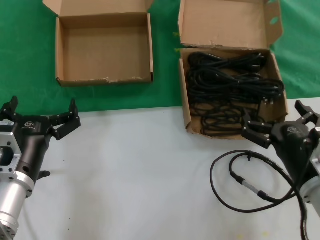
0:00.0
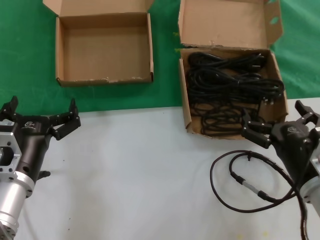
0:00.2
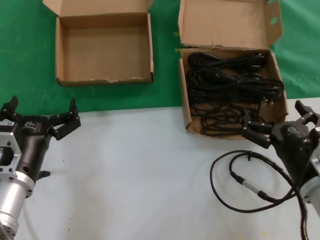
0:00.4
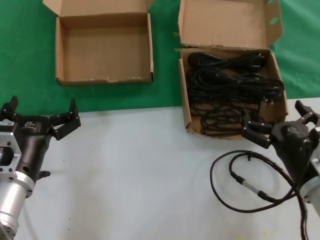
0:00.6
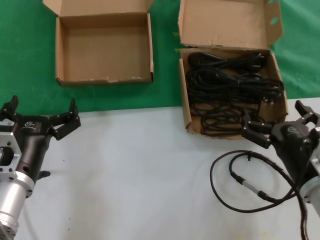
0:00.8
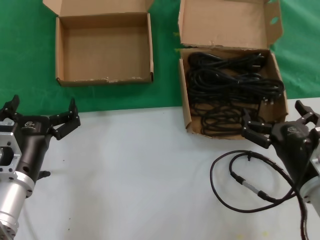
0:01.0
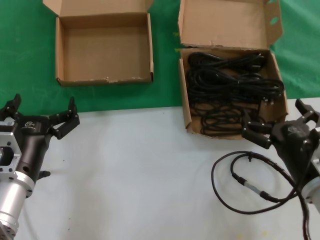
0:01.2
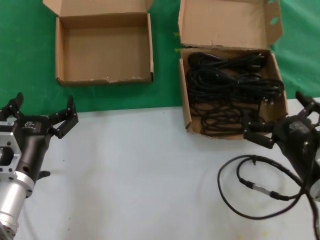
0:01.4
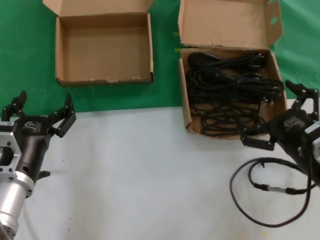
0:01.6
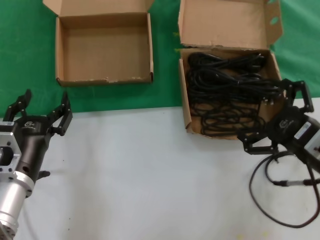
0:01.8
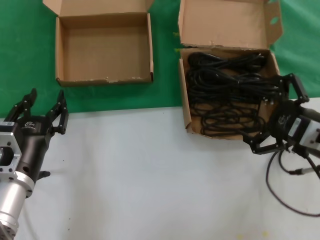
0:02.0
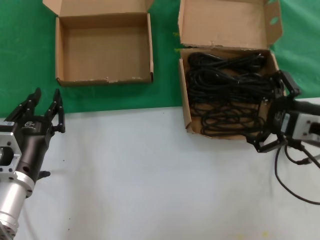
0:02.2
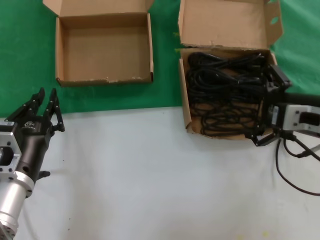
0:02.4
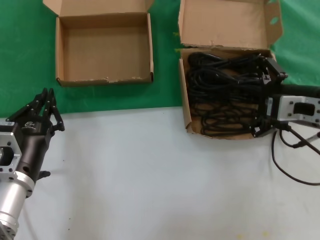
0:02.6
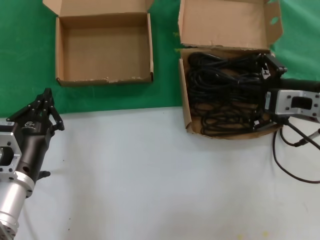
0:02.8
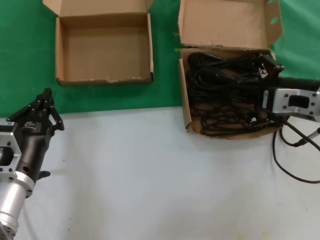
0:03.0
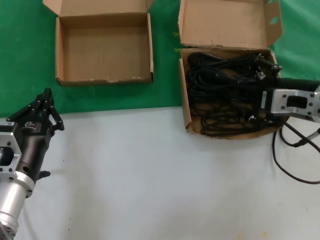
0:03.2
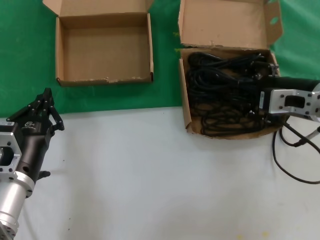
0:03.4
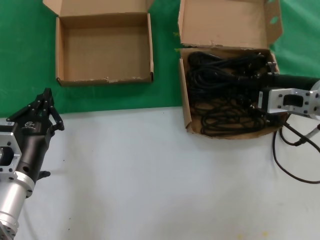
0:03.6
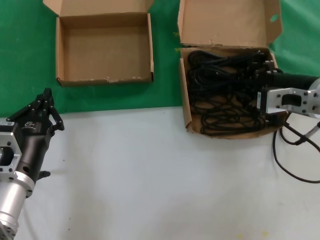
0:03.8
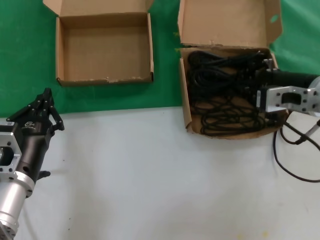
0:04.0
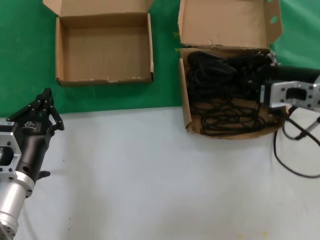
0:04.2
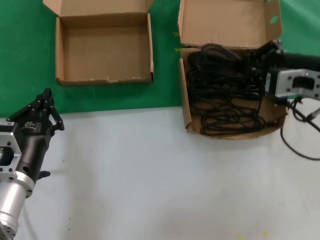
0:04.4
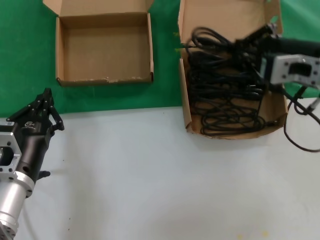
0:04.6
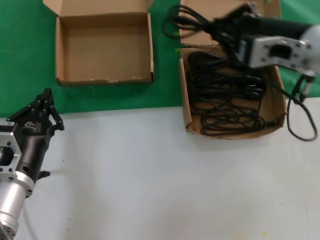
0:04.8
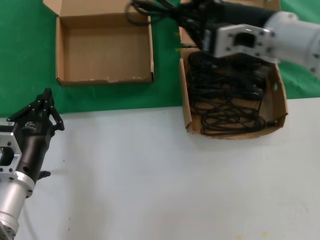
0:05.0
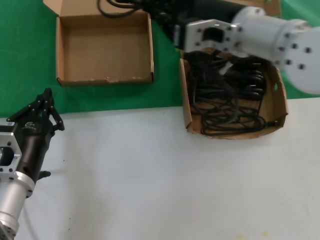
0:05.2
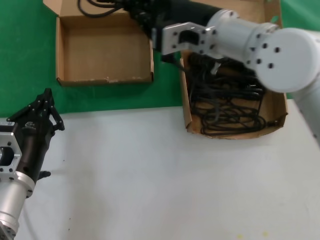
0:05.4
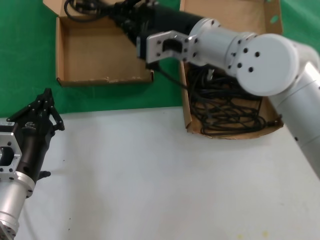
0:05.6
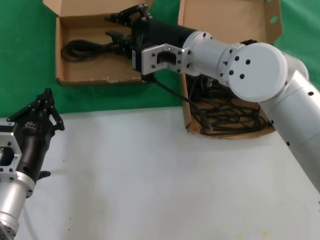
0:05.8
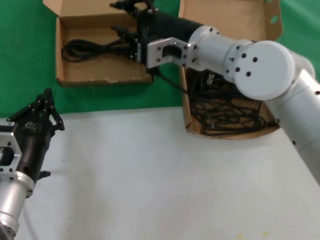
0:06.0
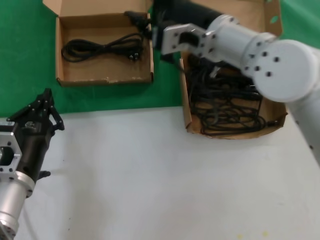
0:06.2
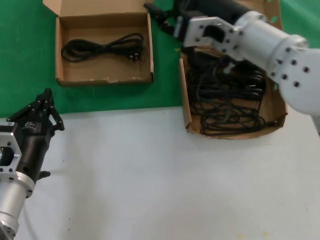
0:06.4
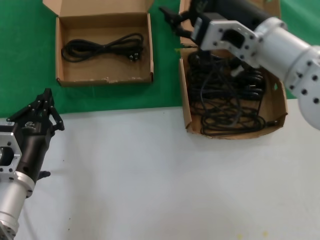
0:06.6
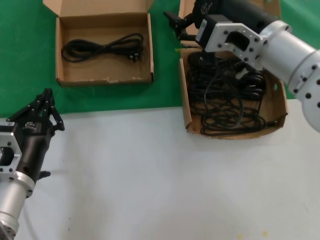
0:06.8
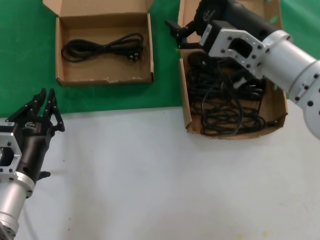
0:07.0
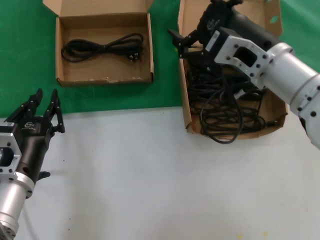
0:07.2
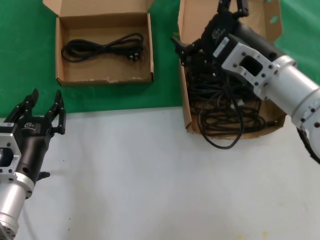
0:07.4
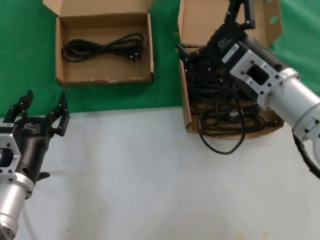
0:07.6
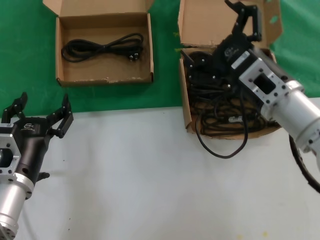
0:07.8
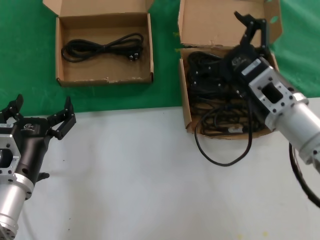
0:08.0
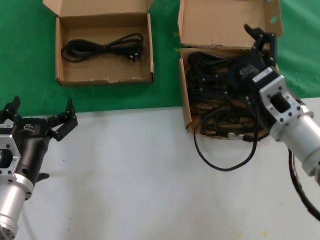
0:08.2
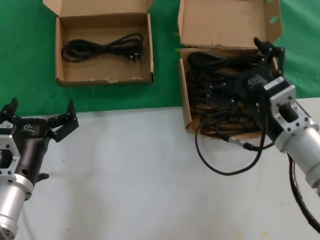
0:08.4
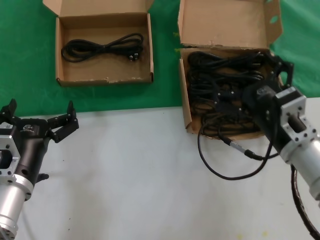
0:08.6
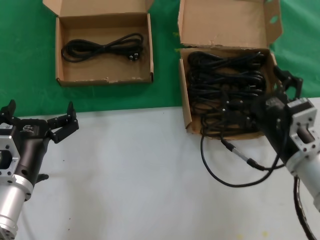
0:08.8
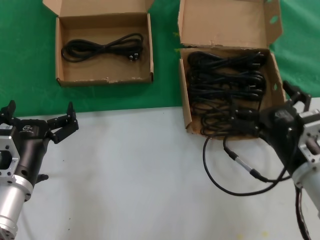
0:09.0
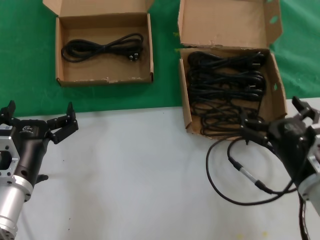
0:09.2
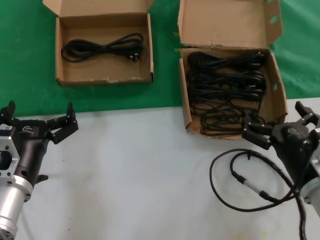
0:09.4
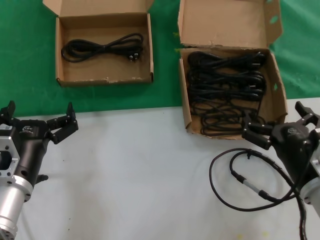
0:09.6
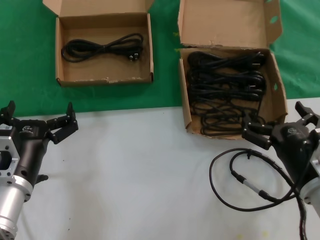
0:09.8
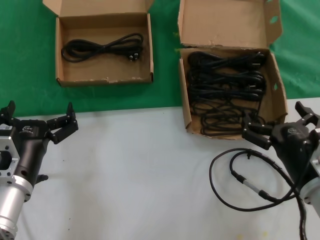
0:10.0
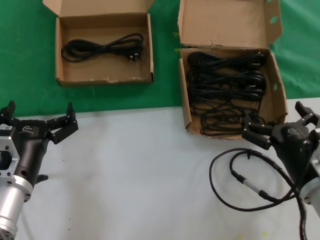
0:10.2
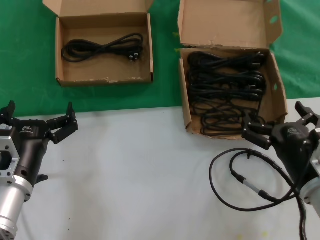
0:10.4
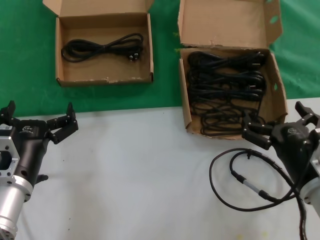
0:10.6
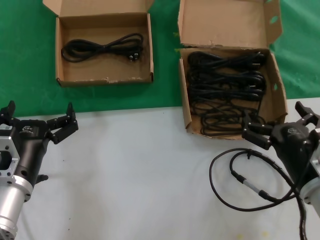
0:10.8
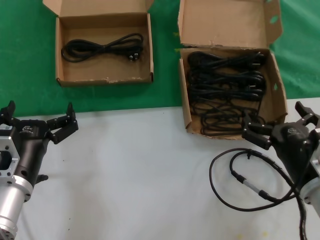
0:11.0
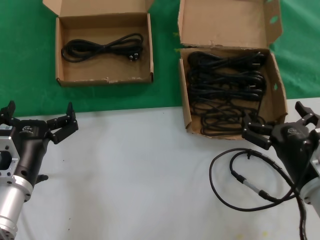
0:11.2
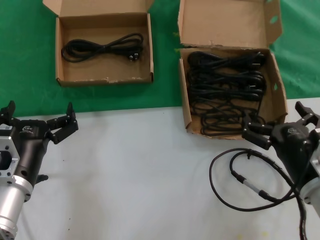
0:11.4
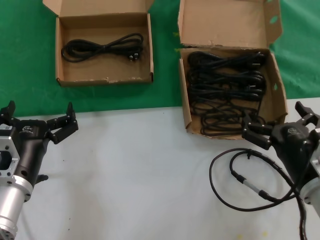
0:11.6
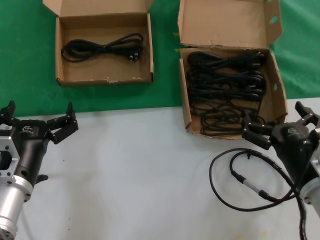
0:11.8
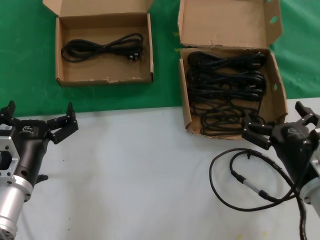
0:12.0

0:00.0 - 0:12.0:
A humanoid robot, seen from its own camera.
Task of the whole recording: take the parts from the box containing them and put them into an empty box.
Step, 0:00.0 - 0:04.0: Grasp the data cable.
Step, 0:04.2 - 0:05.6: Place the data cable in the another box.
0:01.6 - 0:03.0: The right hand moves forward and upward, about 15 cm.
0:03.0 - 0:04.4: The hands stay close to where they were, moving slightly.
0:04.4 - 0:06.0: The right hand shifts some 20 cm to the left.
0:06.0 - 0:07.6: The right hand moves to the right and backward, approximately 15 cm.
0:07.6 - 0:09.0: The right hand moves downward, backward and to the right, some 15 cm.
0:09.0 - 0:10.4: The hands move only a little.
0:10.4 - 0:12.0: Both hands stay put.

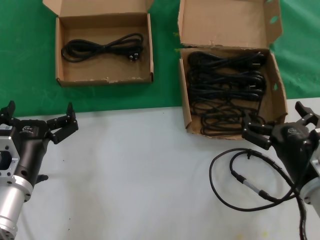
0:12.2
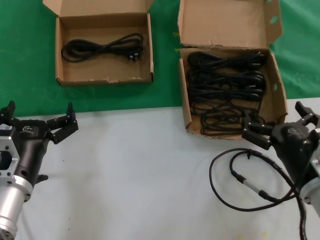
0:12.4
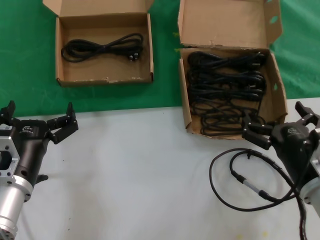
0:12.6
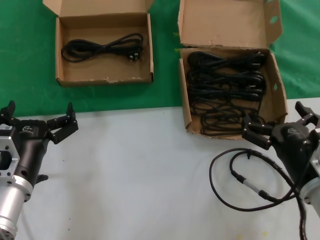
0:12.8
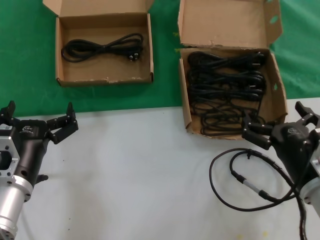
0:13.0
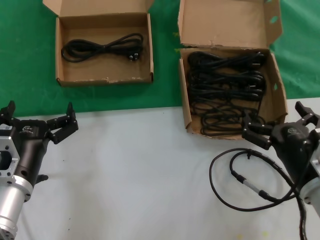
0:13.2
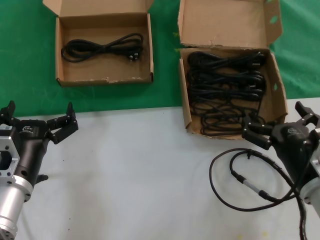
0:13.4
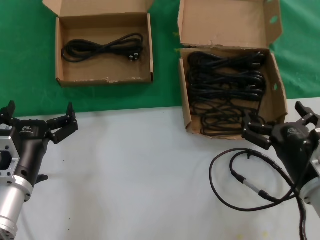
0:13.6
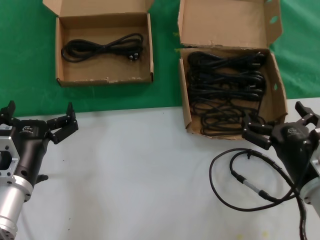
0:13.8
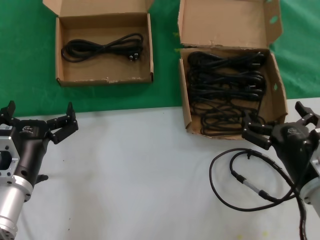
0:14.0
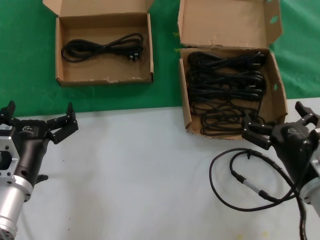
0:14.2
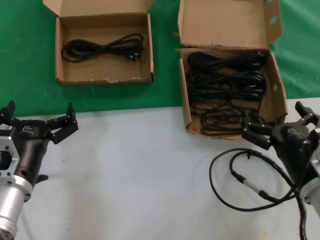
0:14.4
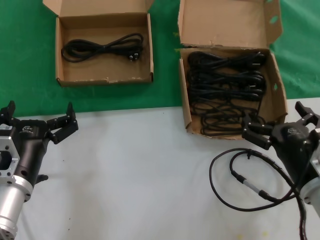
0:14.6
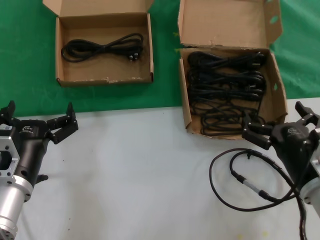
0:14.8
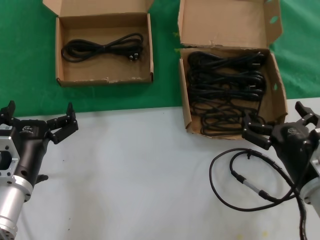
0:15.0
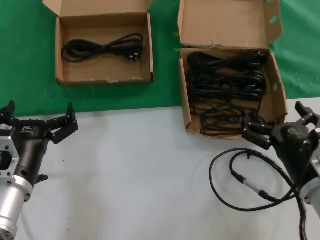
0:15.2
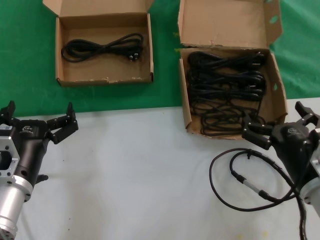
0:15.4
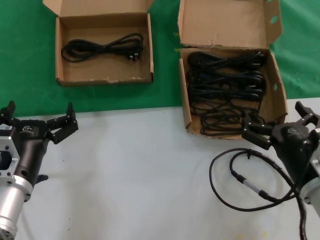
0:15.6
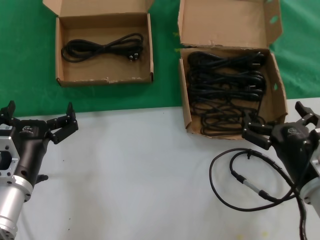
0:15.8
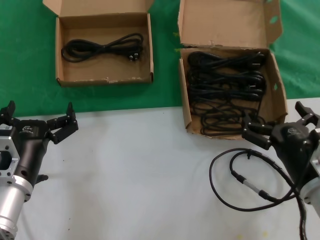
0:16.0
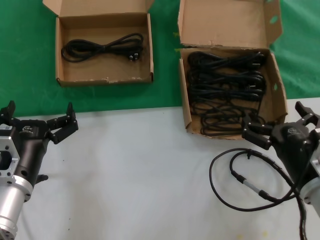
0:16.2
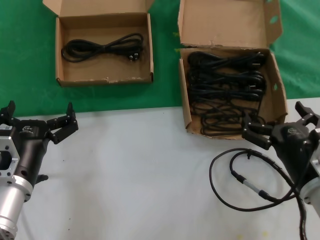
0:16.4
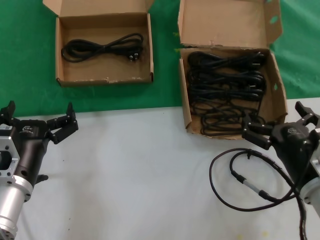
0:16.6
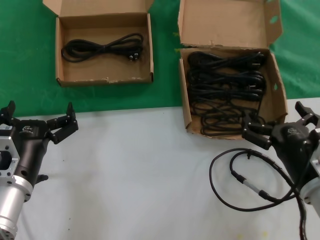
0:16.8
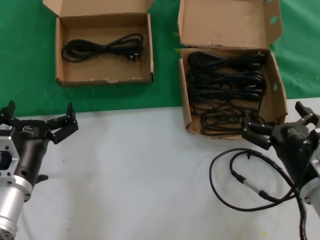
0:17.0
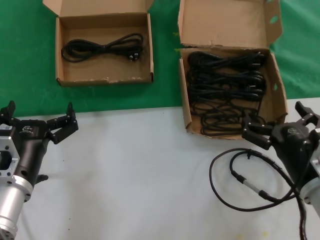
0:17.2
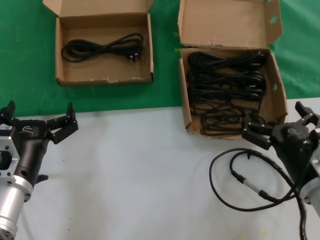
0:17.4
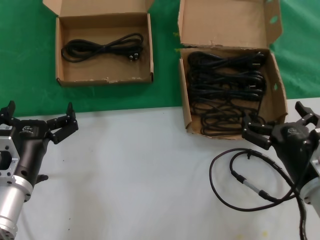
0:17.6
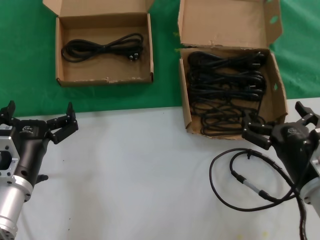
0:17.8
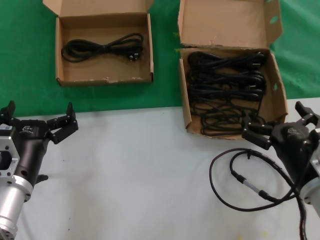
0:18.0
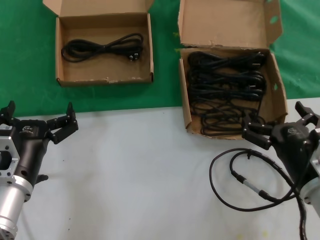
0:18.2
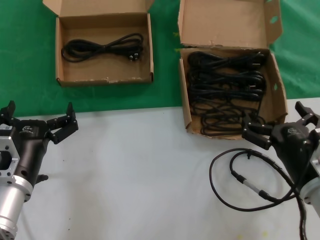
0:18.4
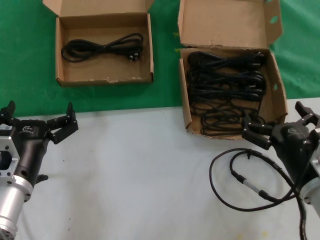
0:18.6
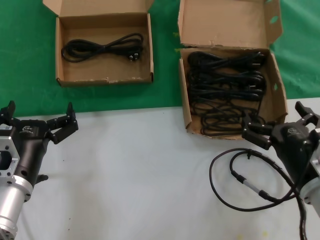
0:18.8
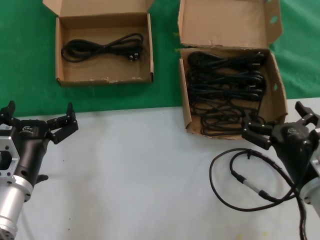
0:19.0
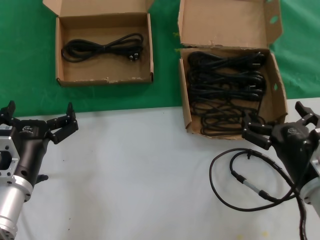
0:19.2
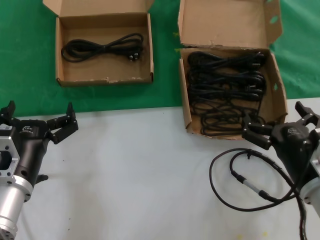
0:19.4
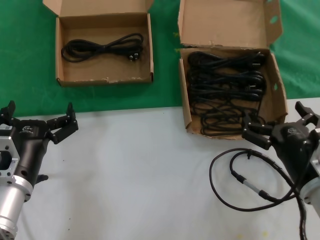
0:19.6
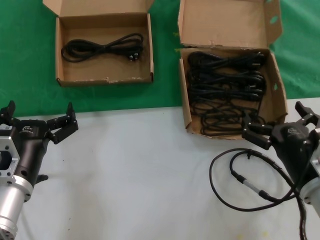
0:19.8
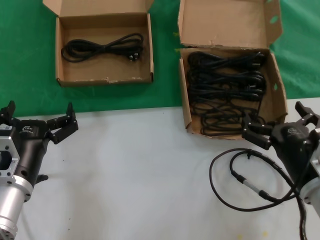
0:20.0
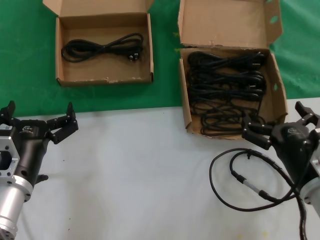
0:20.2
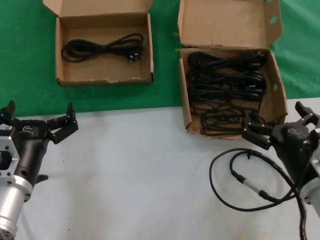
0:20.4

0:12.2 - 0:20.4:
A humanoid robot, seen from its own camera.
Task of the whole recording: take the parts from the box containing them and put them into an empty box.
0:12.2 - 0:20.4: The two hands keep their place.

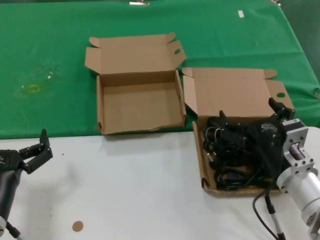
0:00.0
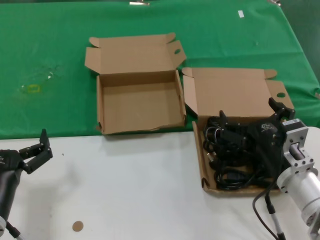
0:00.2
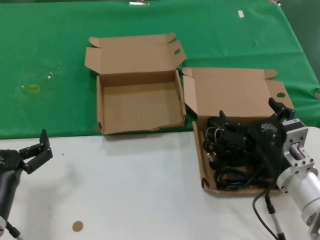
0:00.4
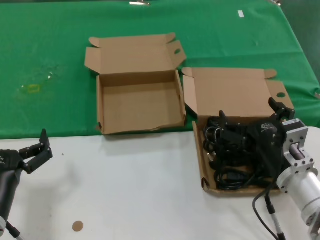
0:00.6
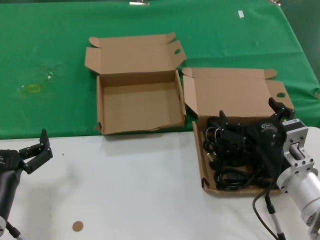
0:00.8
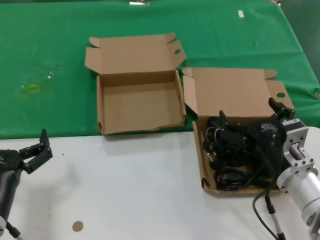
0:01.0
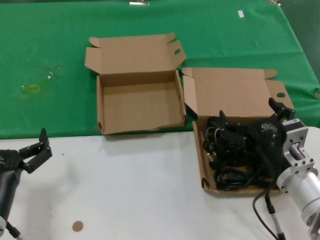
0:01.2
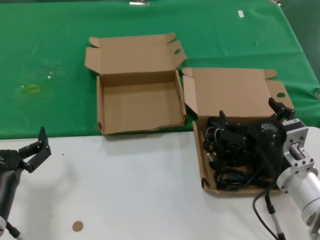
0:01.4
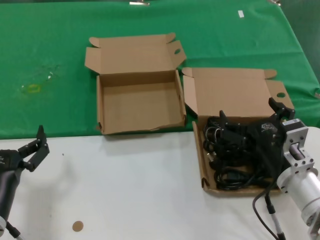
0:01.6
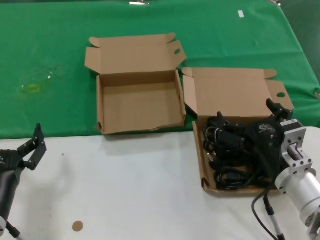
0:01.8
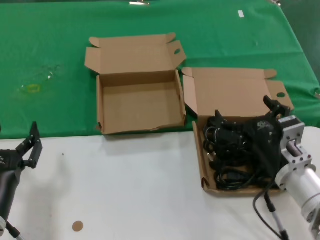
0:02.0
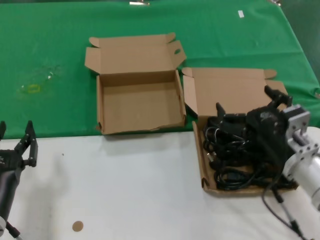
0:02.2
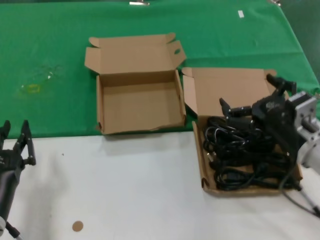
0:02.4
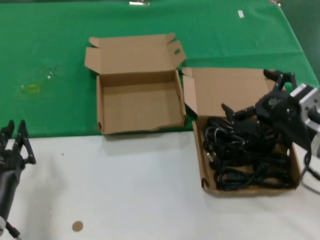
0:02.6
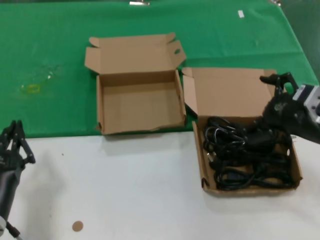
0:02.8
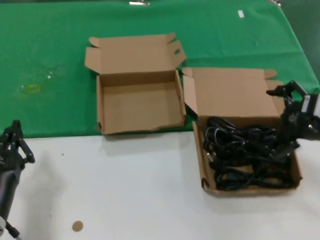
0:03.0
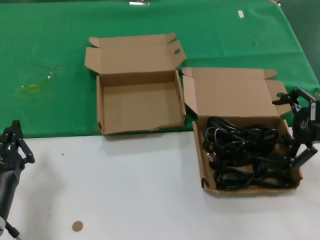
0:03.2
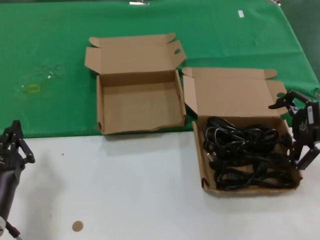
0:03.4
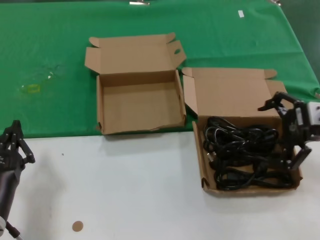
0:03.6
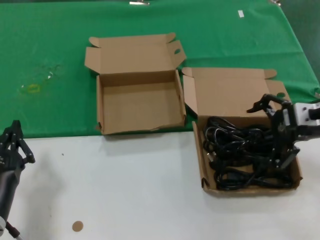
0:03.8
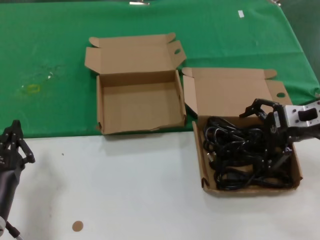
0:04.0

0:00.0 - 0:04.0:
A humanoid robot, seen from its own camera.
Task of the whole recording: take the parts from the box containing them and put them into an empty box.
0:00.0 - 0:01.4: Both hands stay about where they are.
0:01.4 - 0:02.6: The right hand heads upward and to the right, covering approximately 10 cm.
0:02.6 - 0:04.0: The right hand moves forward and upward, roughly 10 cm.
